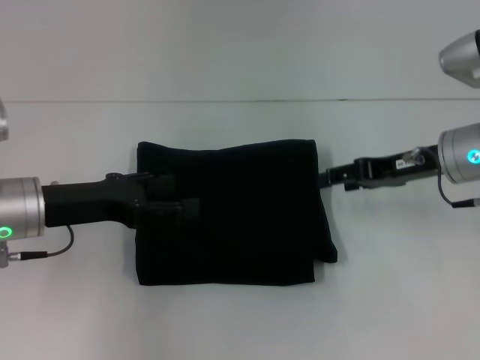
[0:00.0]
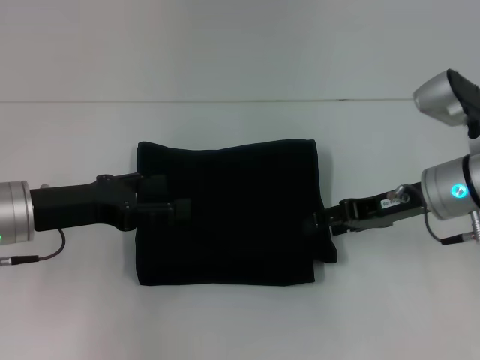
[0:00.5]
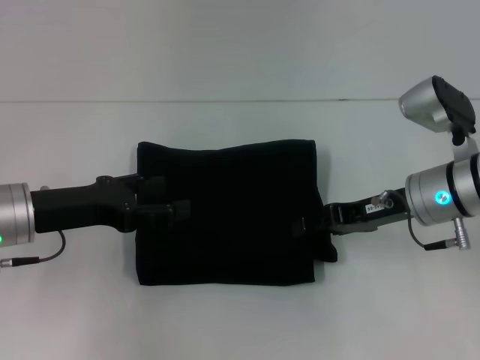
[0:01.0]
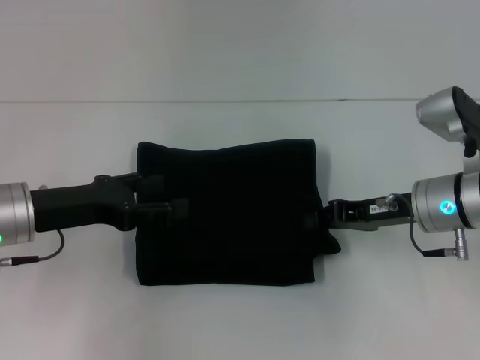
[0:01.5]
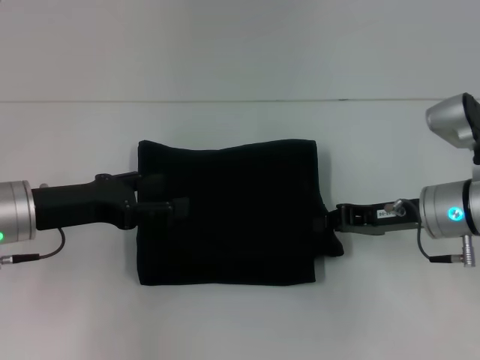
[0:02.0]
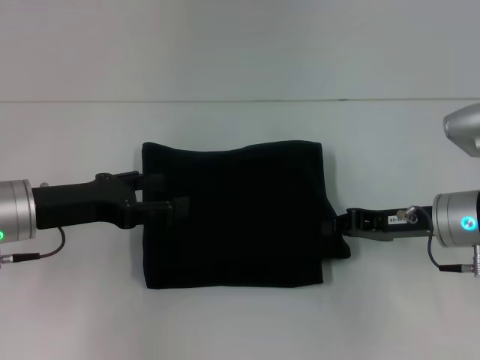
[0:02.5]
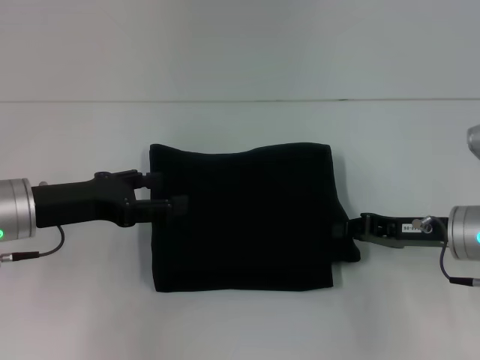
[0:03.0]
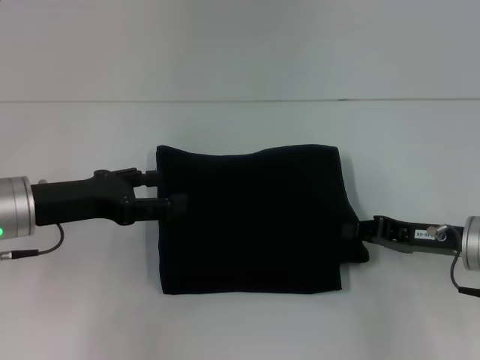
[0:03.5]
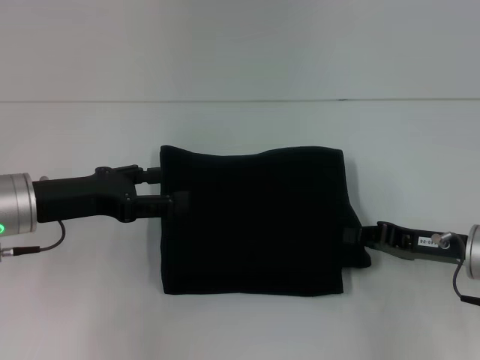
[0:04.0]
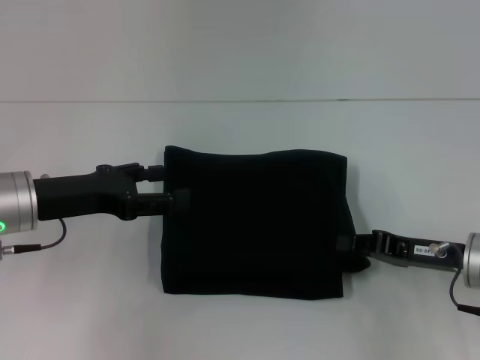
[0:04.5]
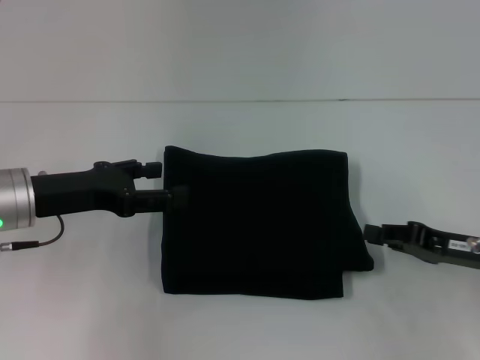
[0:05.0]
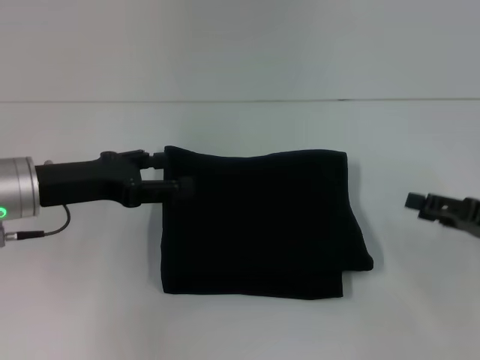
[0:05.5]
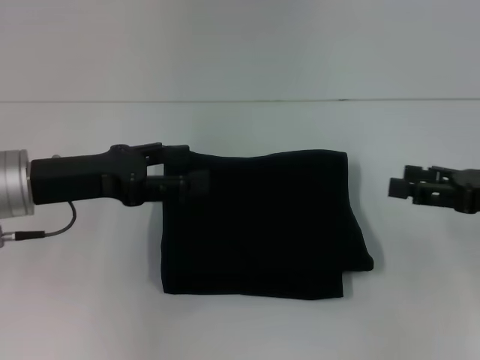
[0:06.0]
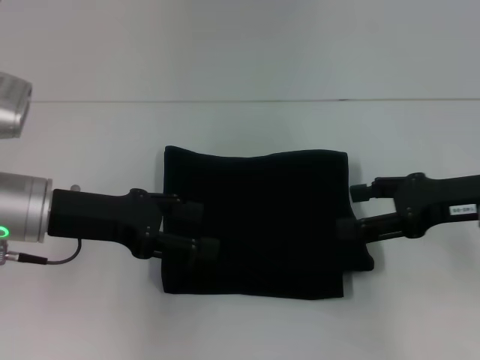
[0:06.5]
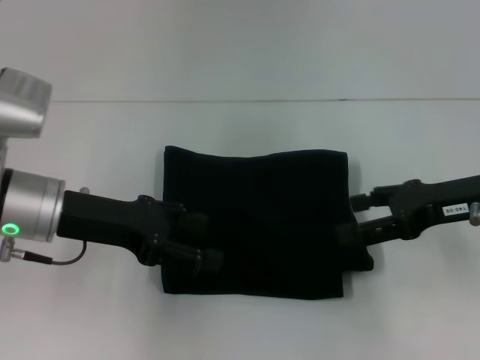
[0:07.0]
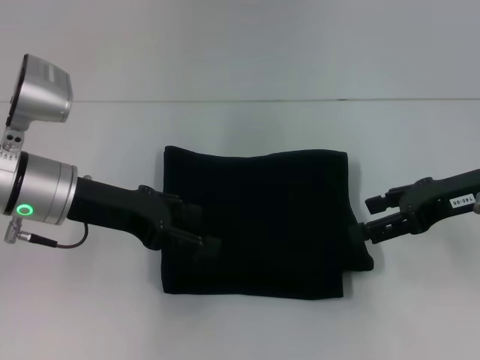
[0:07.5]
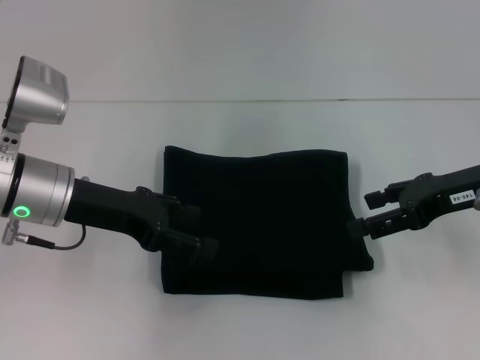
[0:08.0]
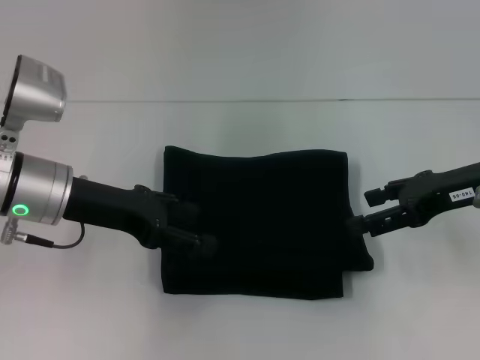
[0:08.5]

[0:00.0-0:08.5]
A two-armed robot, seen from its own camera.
0:00.0 to 0:02.0: The right gripper ends up roughly 5 cm from where it was, and closes its fingers.
0:02.0 to 0:04.0: The right gripper changes place by roughly 5 cm.
0:04.0 to 0:06.5: The right gripper moves upward, roughly 10 cm, and opens.
0:06.5 to 0:08.5: There are only small adjustments of the grippers.

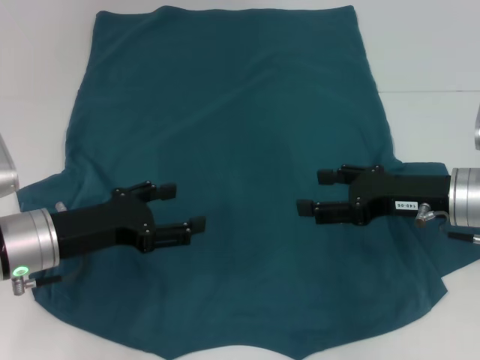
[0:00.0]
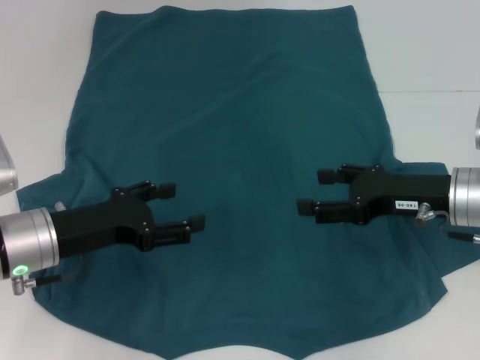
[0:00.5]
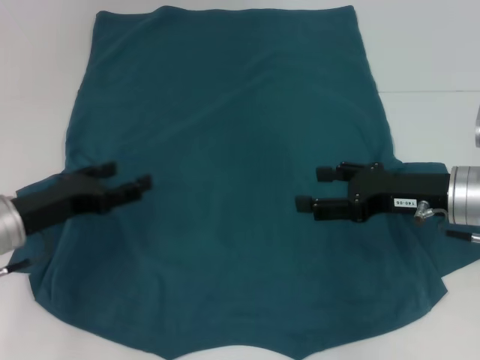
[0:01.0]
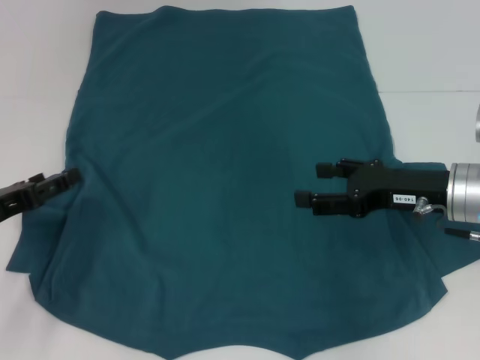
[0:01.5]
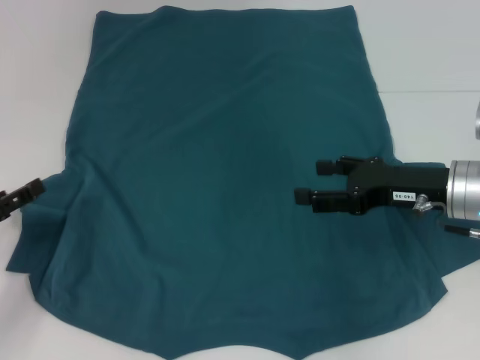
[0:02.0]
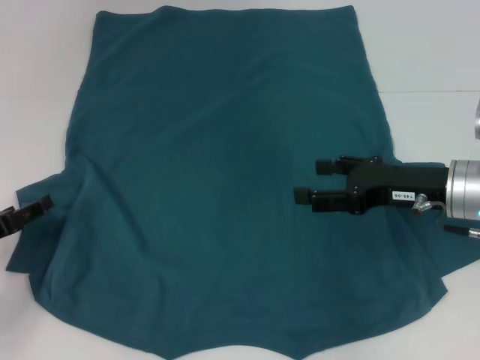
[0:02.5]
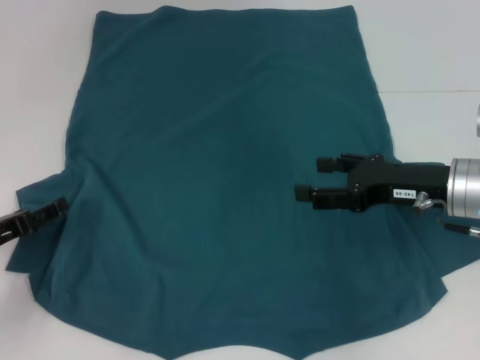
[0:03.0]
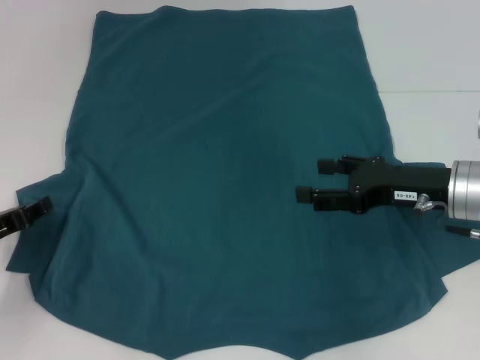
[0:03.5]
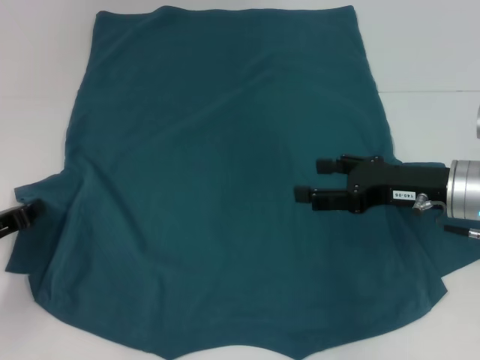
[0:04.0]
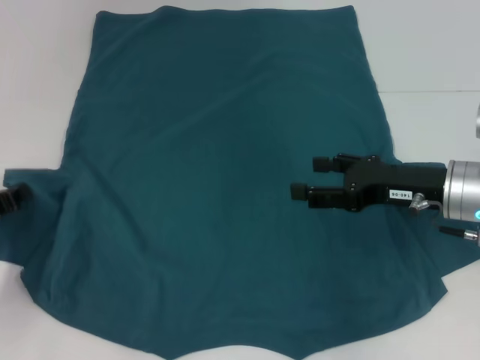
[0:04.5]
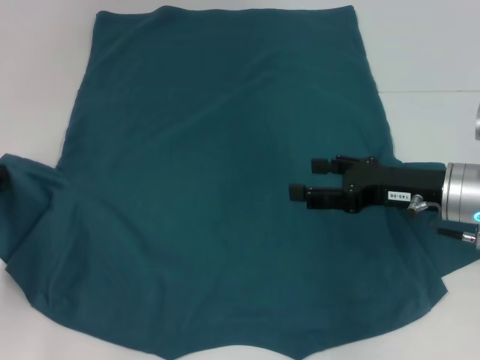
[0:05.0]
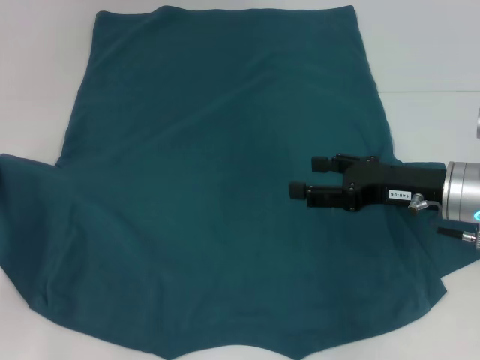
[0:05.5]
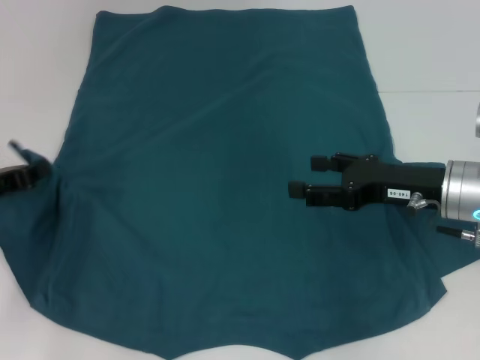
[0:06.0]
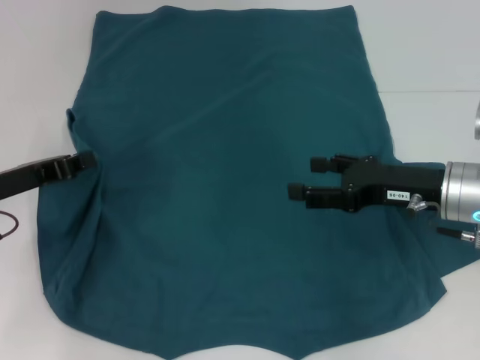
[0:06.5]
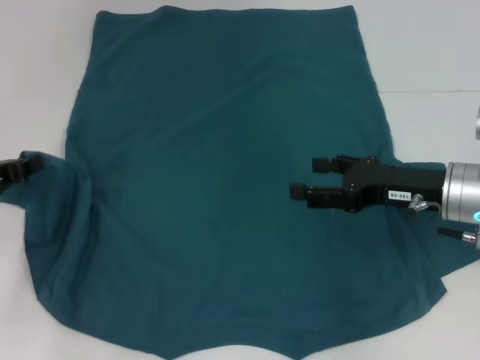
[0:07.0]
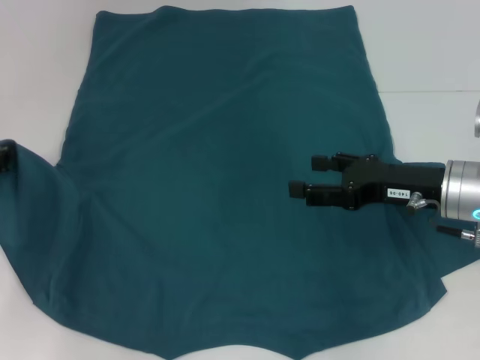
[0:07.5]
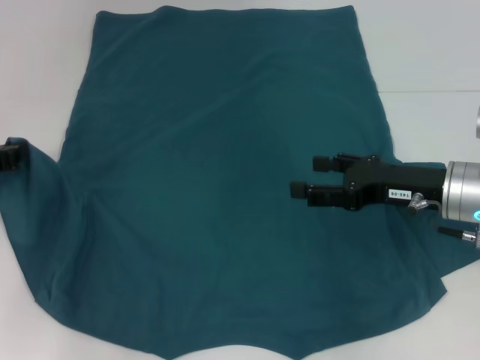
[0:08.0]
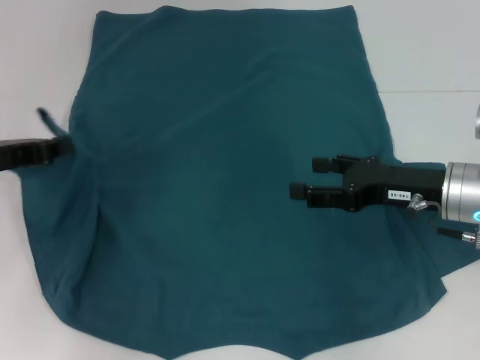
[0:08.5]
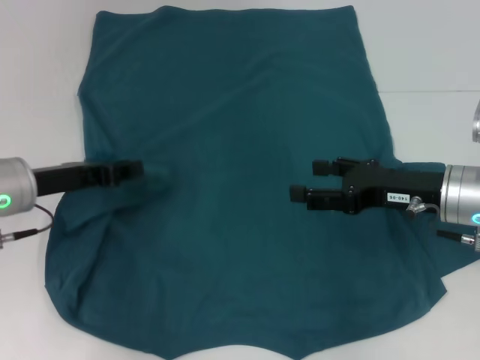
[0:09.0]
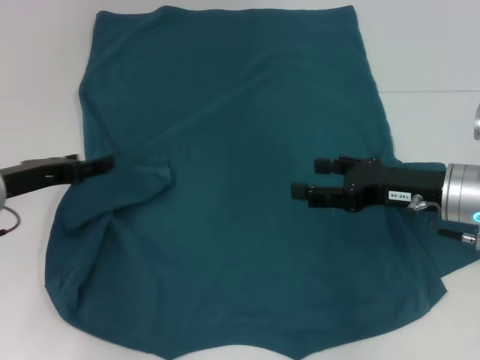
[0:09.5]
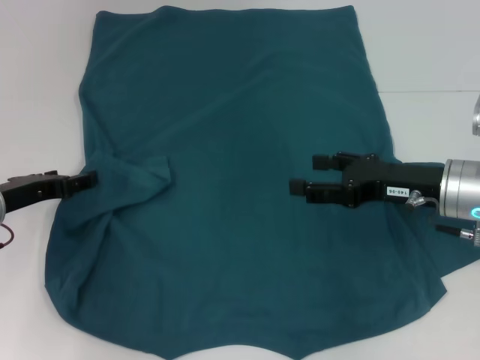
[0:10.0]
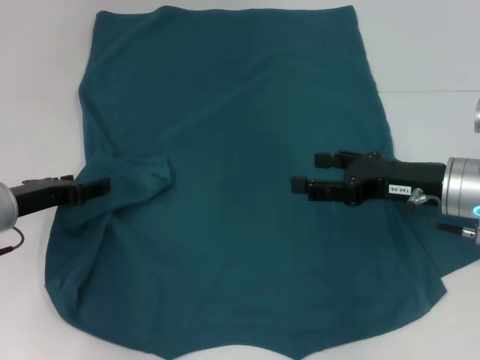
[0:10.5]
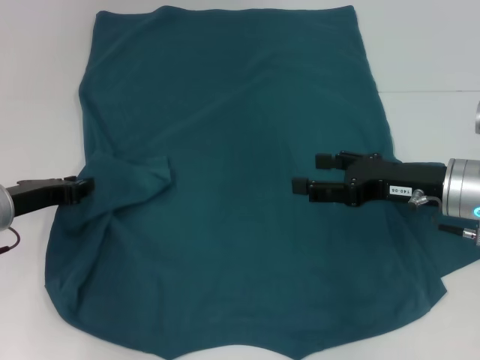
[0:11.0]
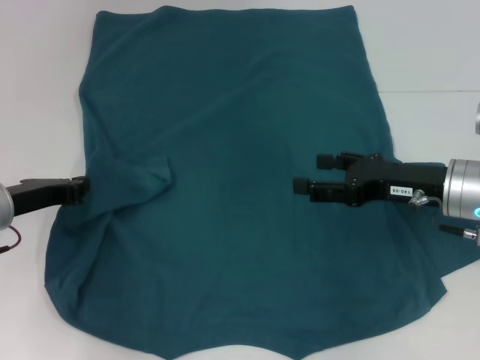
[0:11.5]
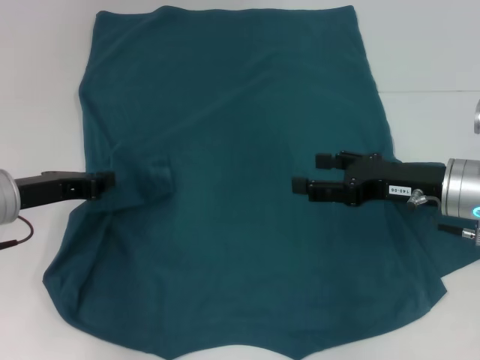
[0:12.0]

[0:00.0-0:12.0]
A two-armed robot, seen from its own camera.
0:00.0 to 0:02.0: The left gripper moves to the left, roughly 10 cm.
0:02.0 to 0:04.0: The left gripper closes its fingers.
0:04.0 to 0:06.0: The left gripper changes place by roughly 5 cm.
0:06.0 to 0:08.0: There are only small adjustments of the grippers.
0:08.0 to 0:10.0: The left gripper moves approximately 5 cm, and opens up.
0:10.0 to 0:12.0: The left gripper closes its fingers.

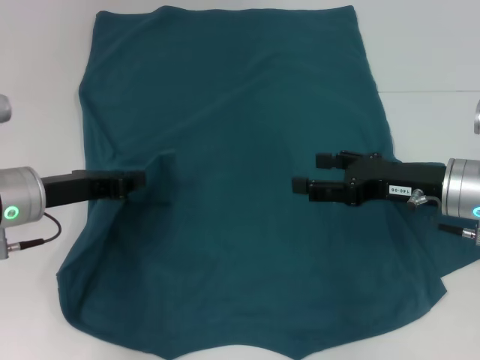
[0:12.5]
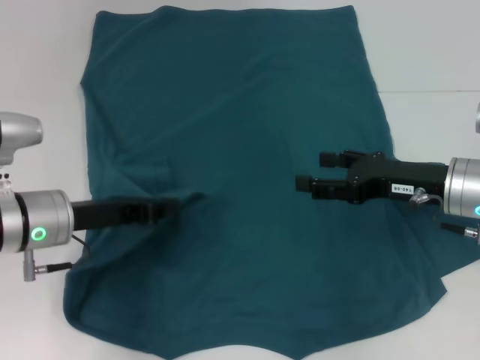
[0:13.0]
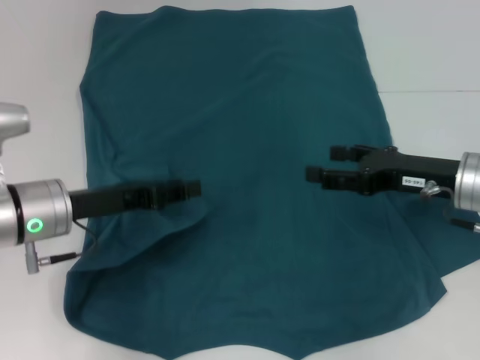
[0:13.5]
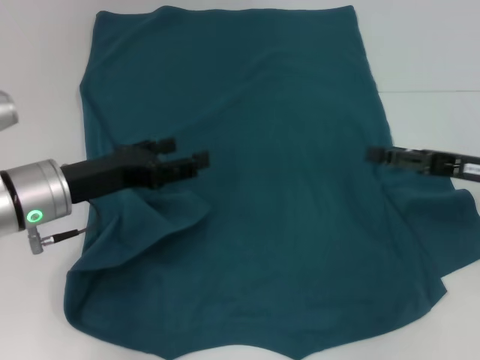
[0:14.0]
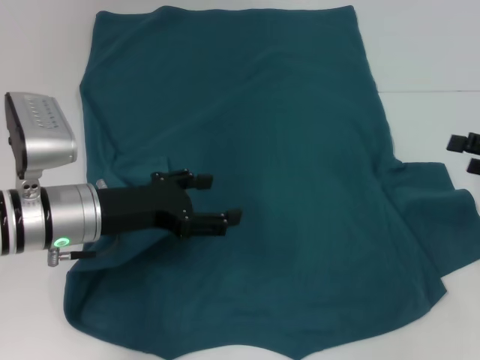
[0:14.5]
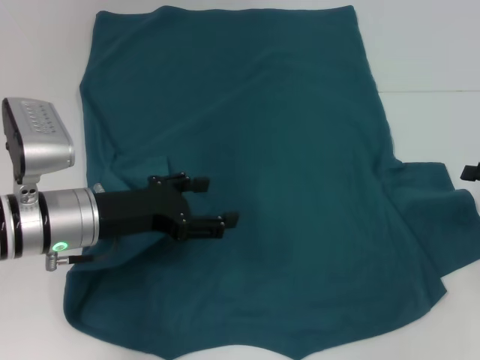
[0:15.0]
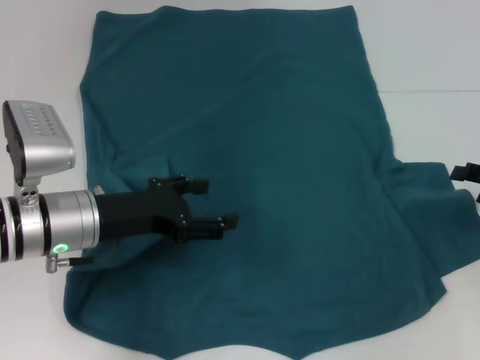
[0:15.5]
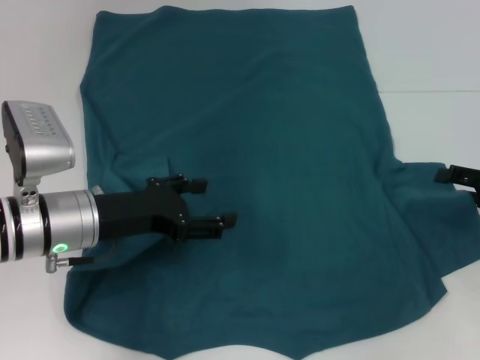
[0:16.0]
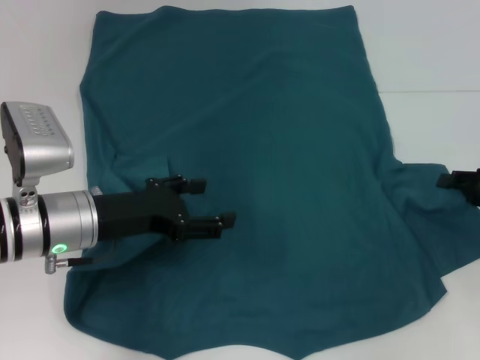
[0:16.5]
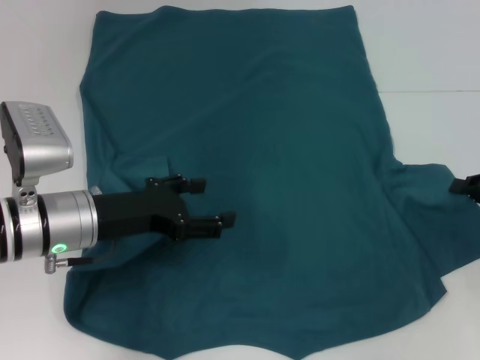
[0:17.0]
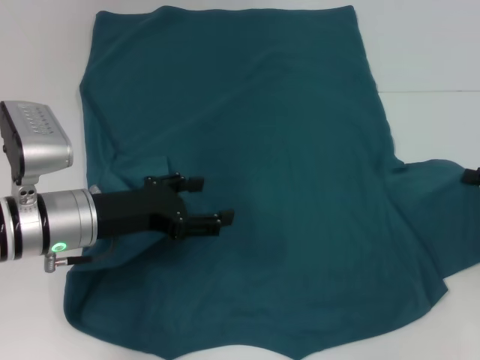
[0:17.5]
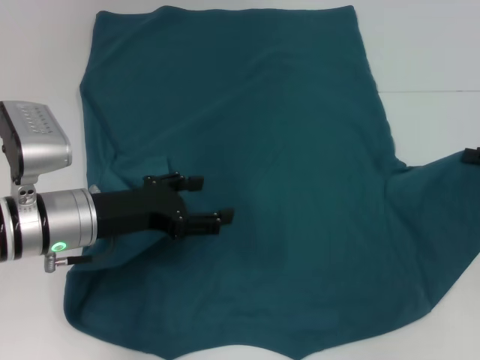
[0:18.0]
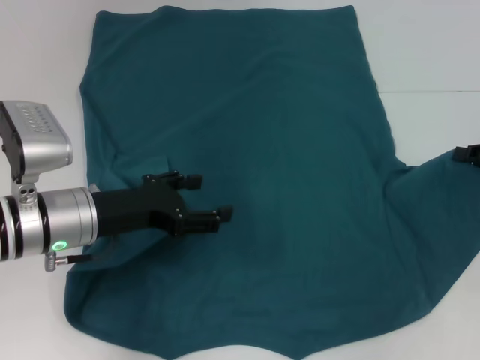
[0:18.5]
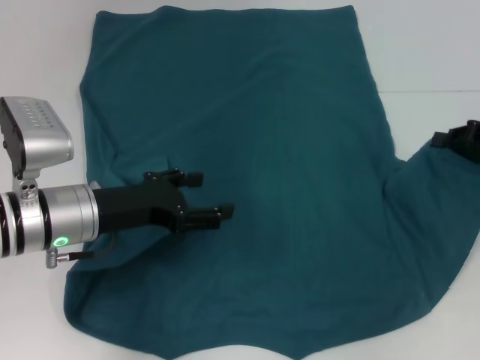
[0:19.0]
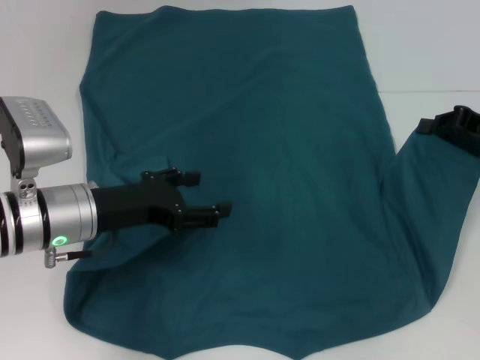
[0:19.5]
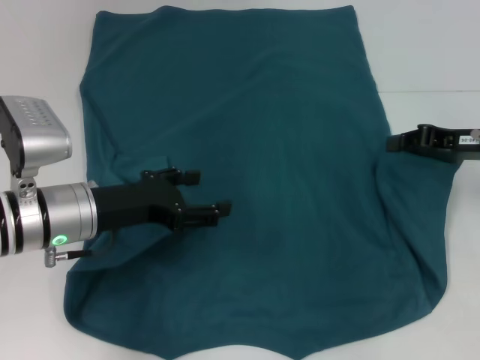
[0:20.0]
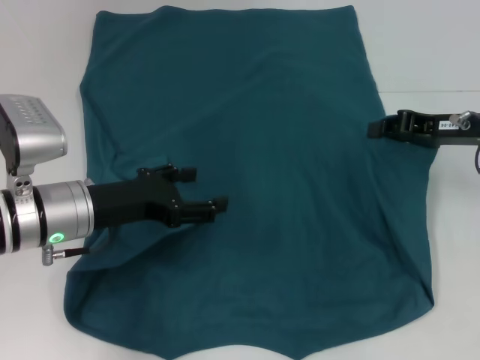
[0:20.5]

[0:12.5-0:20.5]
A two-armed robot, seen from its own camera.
0:12.5 to 0:14.5: The left gripper shifts approximately 5 cm to the right, and opens. Meanwhile the right gripper moves to the right, roughly 15 cm.
0:14.5 to 0:16.5: The grippers stay close to where they were, moving slightly.
0:16.5 to 0:18.5: The right gripper closes.
0:18.5 to 0:20.5: The right gripper heads to the left, covering some 10 cm.
